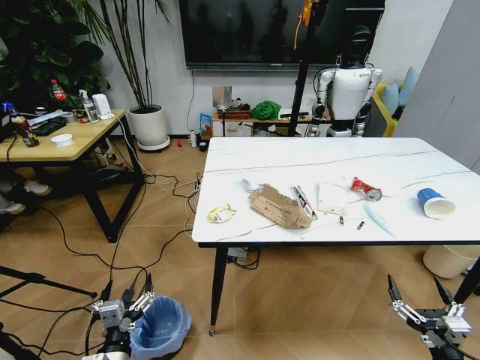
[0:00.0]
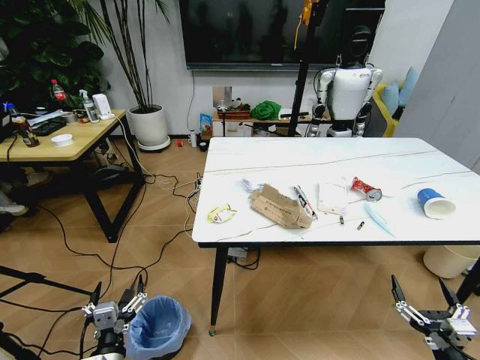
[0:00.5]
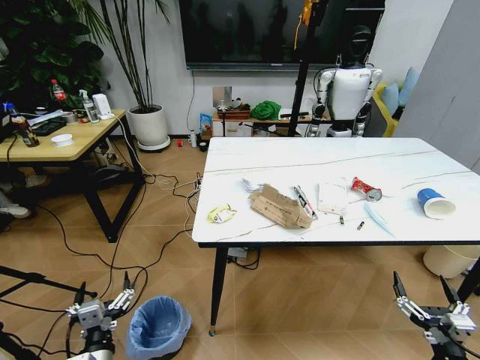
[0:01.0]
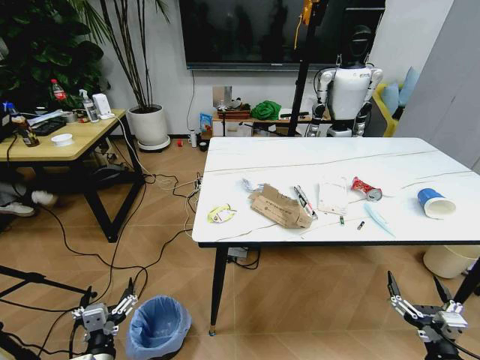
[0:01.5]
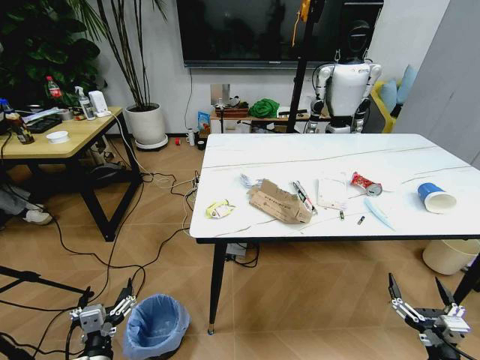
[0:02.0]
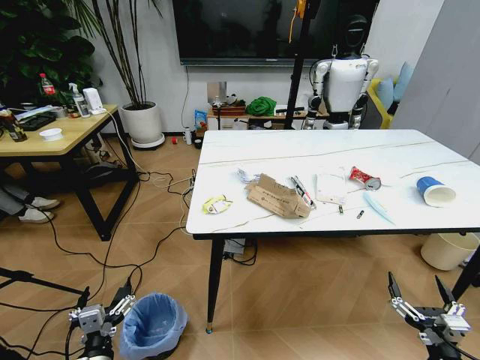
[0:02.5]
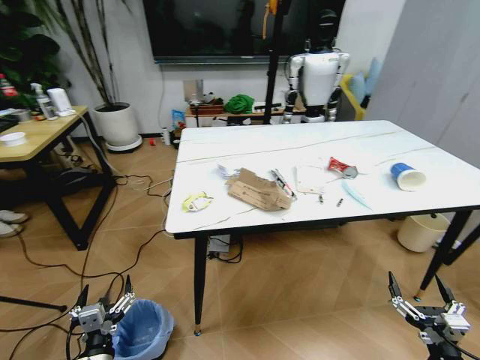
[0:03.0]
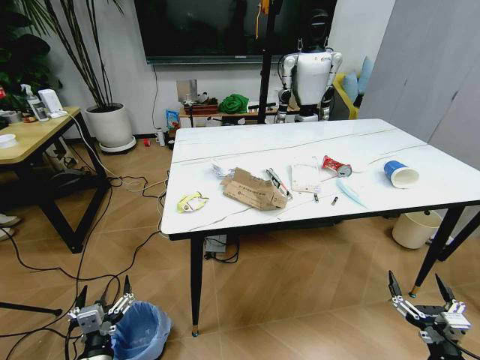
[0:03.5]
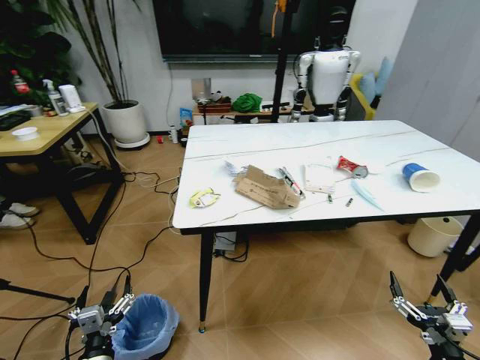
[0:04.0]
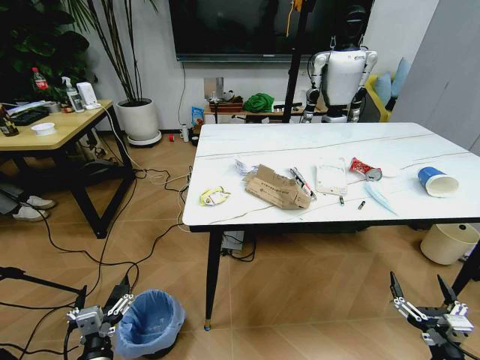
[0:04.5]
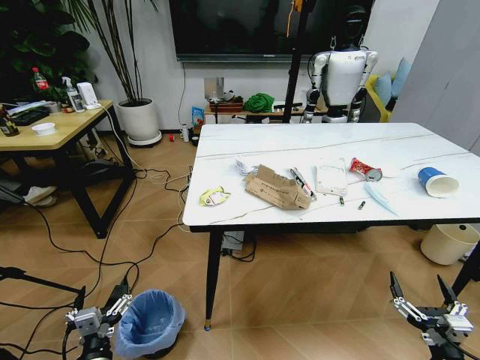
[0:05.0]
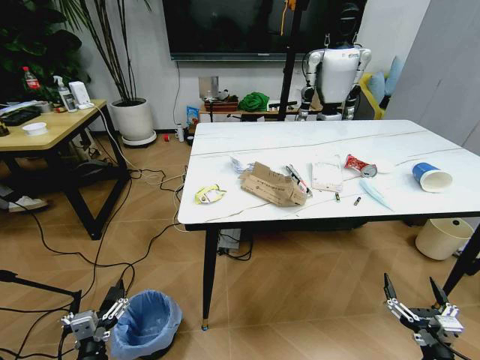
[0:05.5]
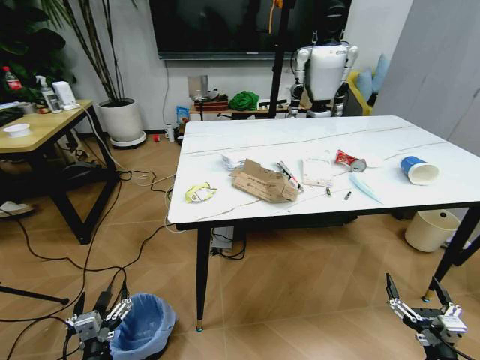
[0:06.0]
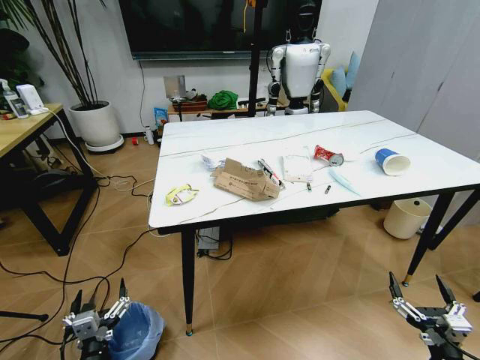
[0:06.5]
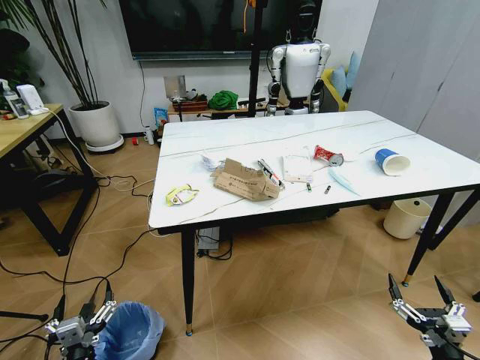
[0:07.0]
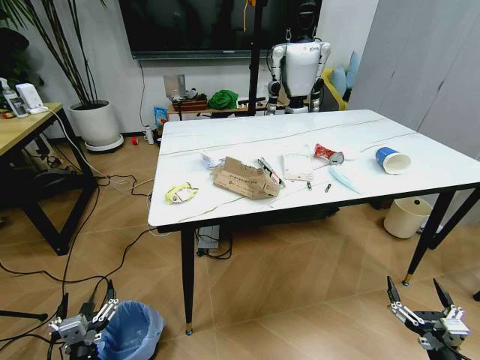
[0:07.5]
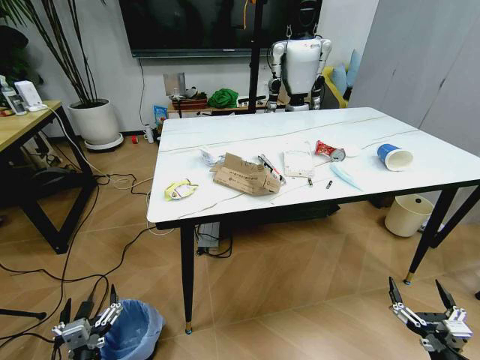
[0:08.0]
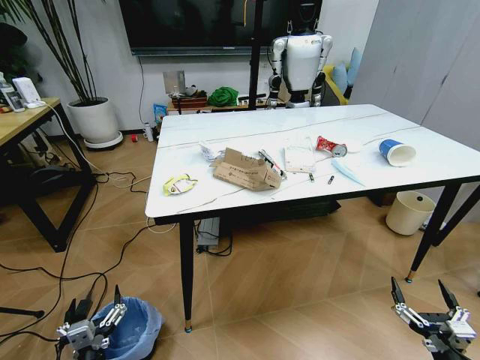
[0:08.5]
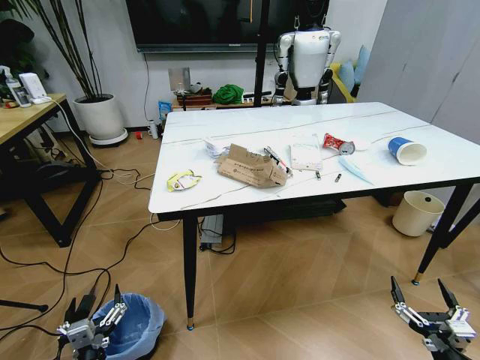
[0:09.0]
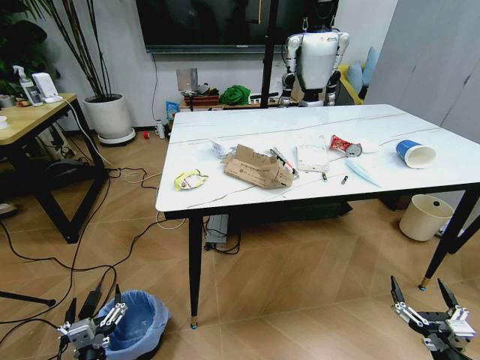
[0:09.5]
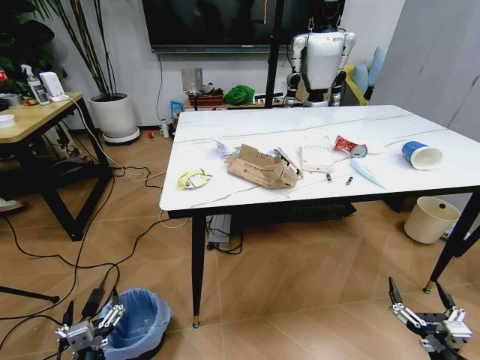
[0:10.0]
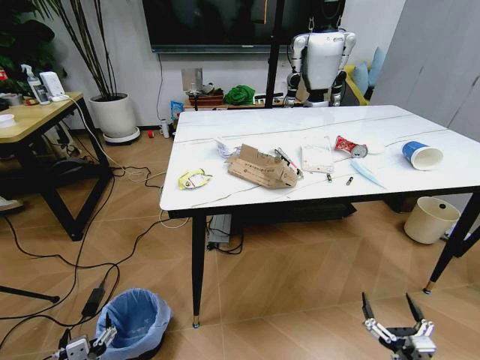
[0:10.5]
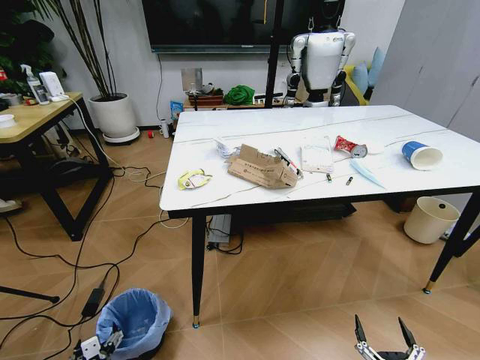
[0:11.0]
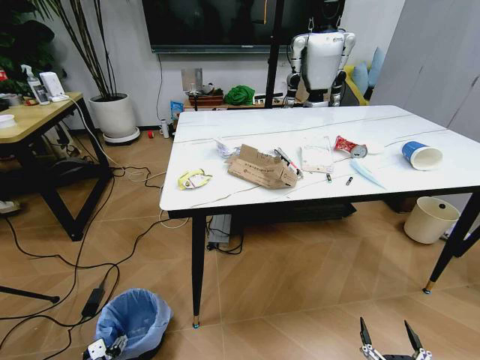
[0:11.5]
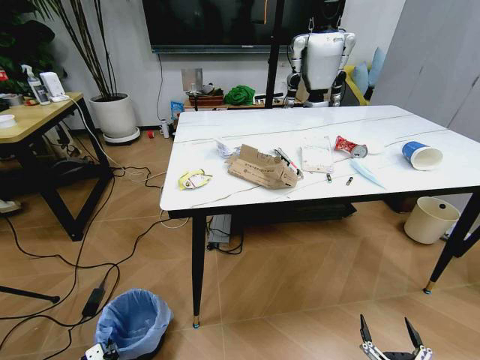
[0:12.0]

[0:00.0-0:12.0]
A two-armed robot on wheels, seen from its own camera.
Task of the whole recording: Pick up the trash bin and place the trash from the table into it.
0:10.0 to 0:12.0: The left gripper travels downward by approximately 15 cm, and closes up. Meanwhile the right gripper shifts roughly 10 cm downward, to the left and backward.

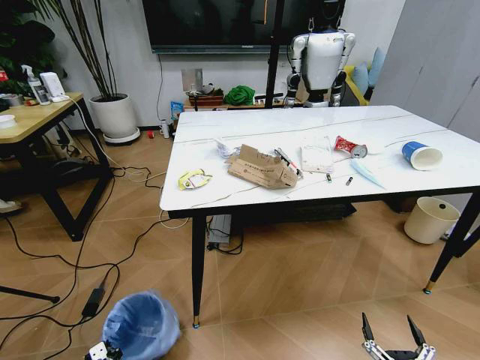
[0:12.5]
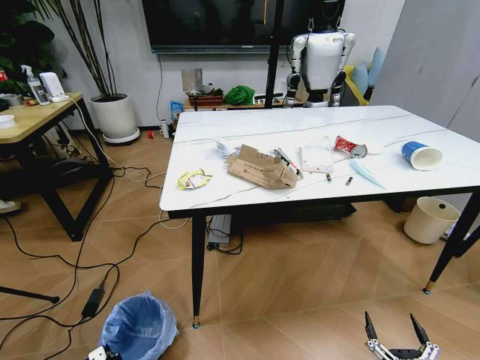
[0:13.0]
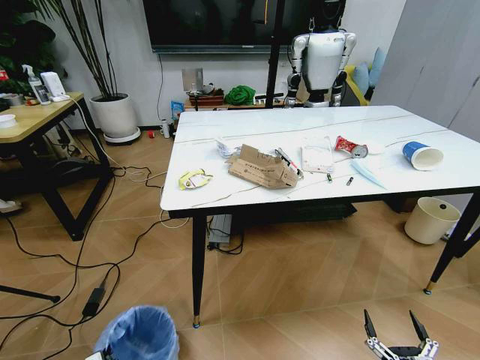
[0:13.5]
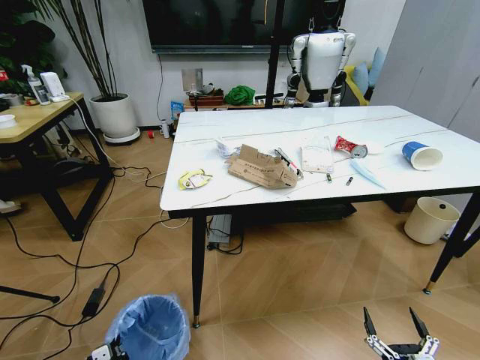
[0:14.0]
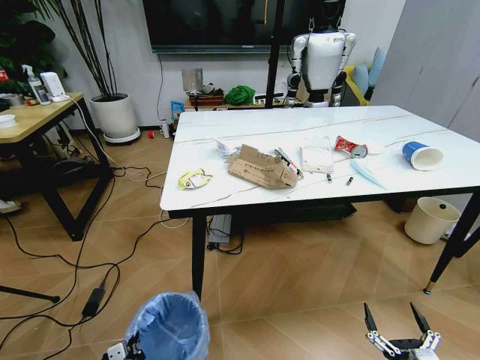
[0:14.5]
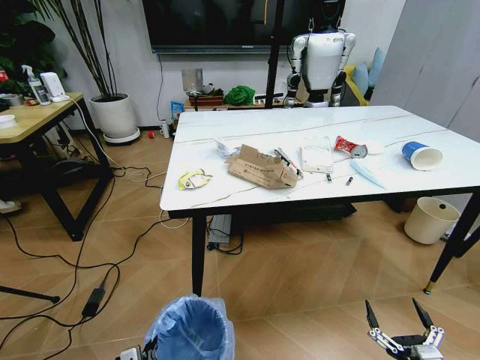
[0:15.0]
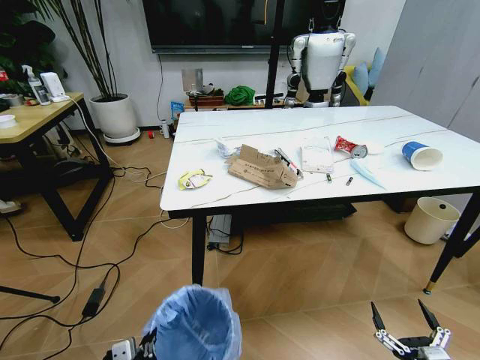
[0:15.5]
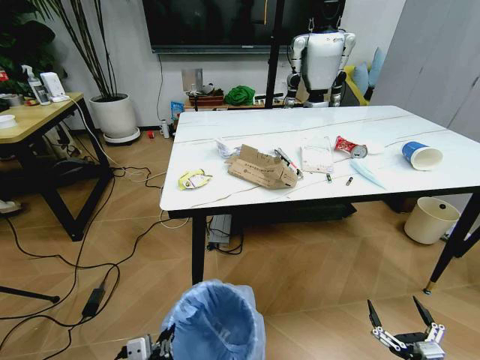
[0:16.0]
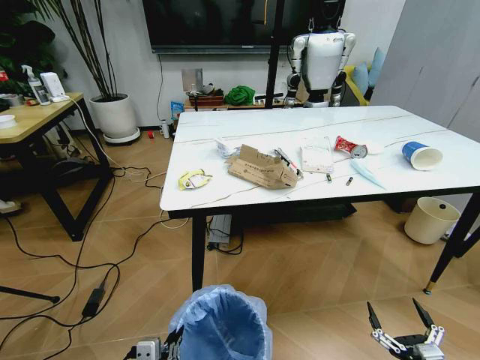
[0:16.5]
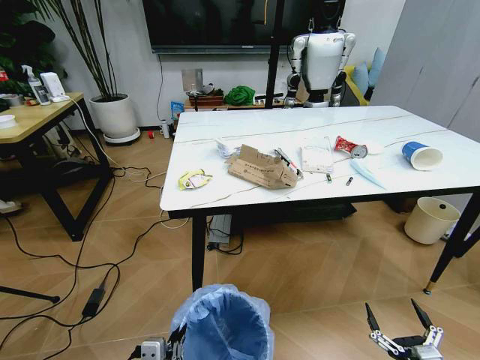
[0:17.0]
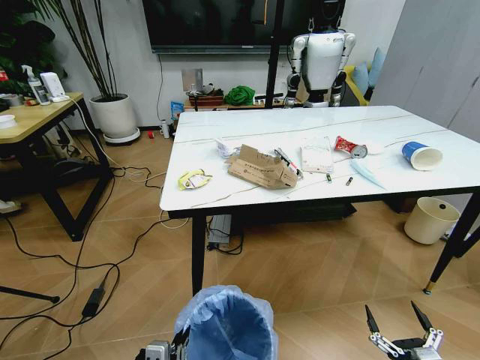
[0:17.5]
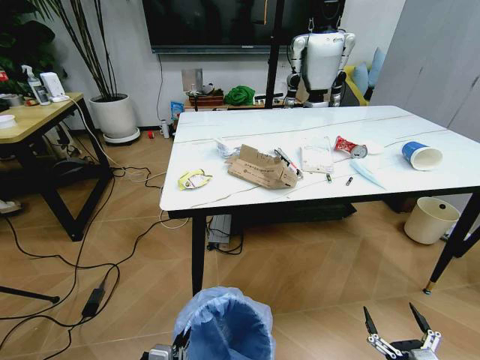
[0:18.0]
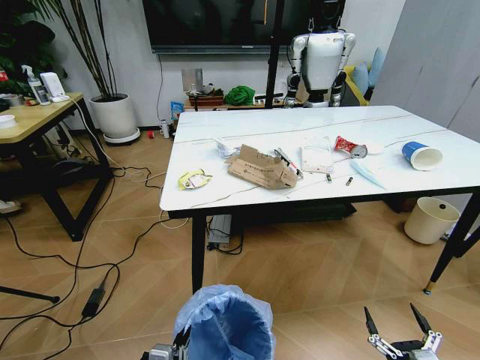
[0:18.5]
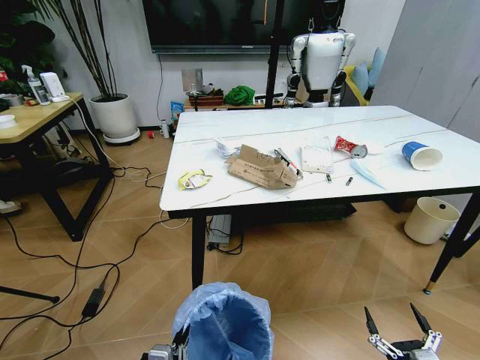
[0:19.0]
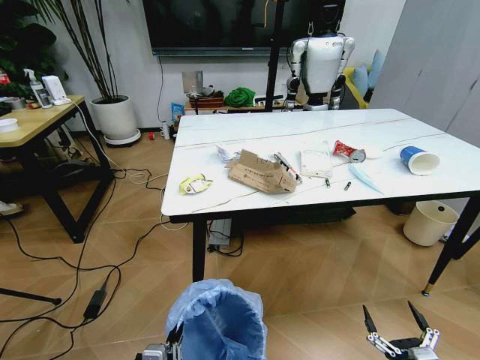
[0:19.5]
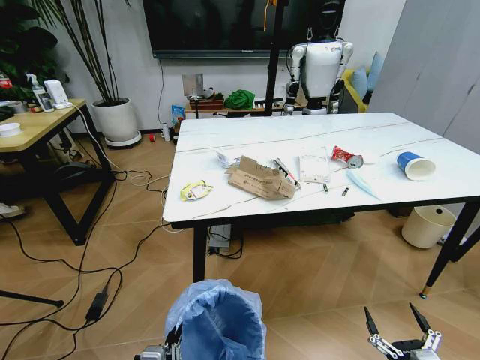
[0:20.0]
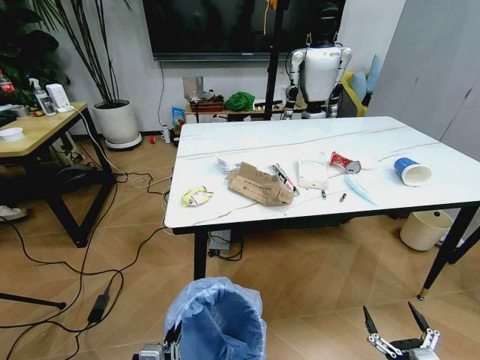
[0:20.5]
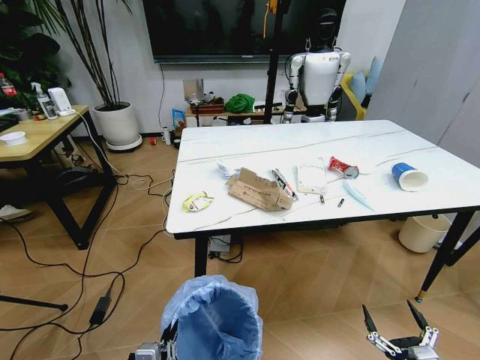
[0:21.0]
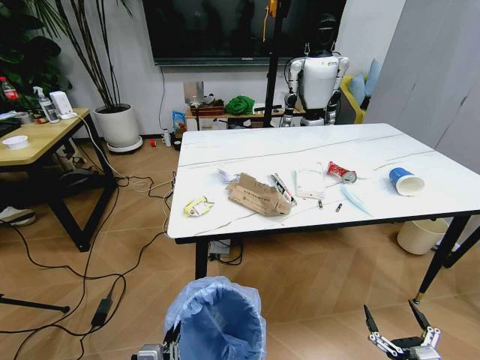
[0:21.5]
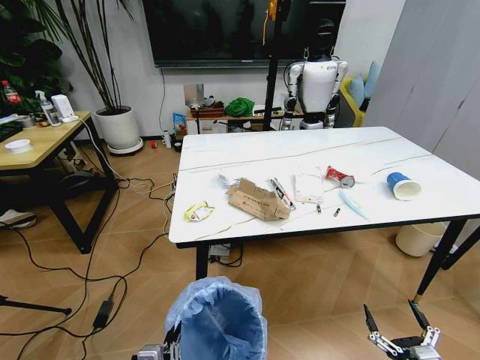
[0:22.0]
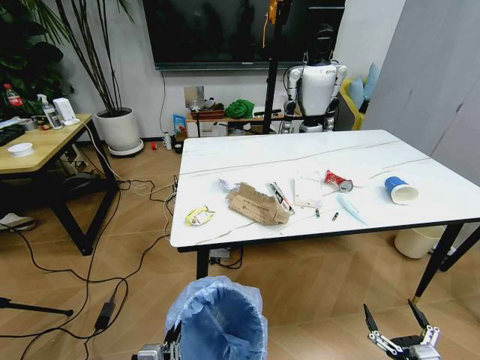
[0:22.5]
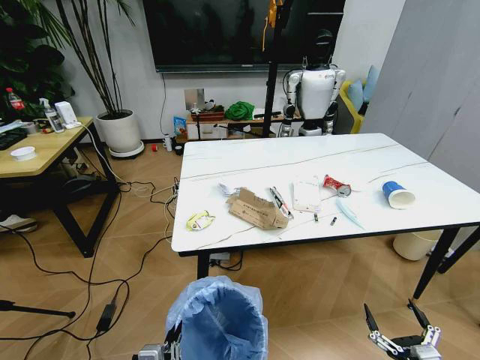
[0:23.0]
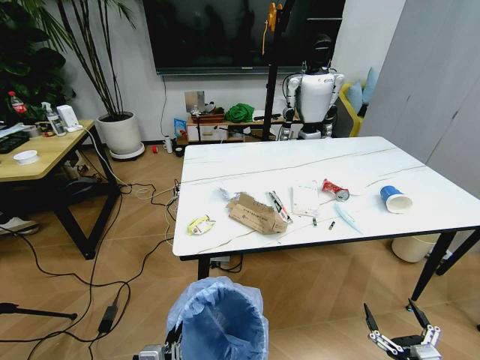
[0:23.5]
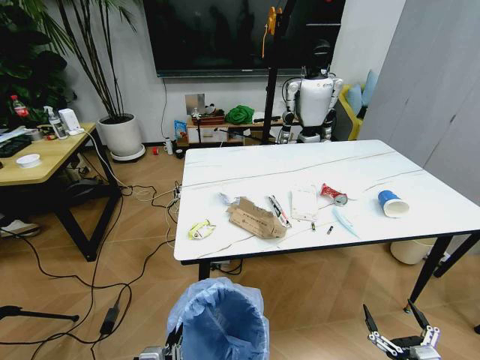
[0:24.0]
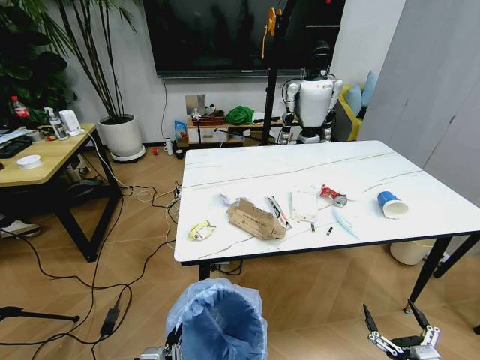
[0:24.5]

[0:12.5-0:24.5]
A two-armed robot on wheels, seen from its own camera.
Task of the whole recording: Pick up the trash bin and place the trash from the table into it.
0:12.5 to 0:14.5: The left gripper is displaced upward, to the right and backward by about 15 cm.
0:14.5 to 0:16.5: The left gripper goes approximately 20 cm upward and to the right.
0:16.5 to 0:18.5: The grippers move only a little.

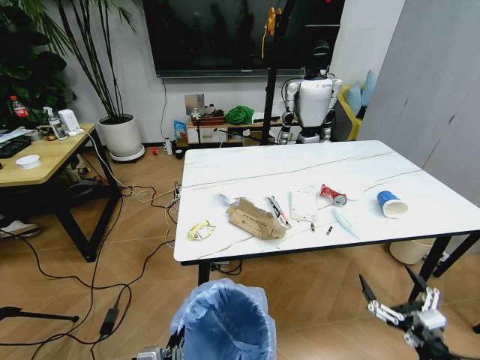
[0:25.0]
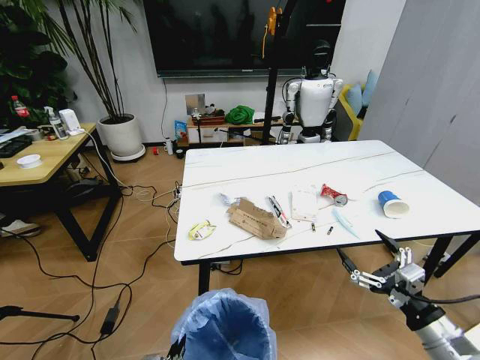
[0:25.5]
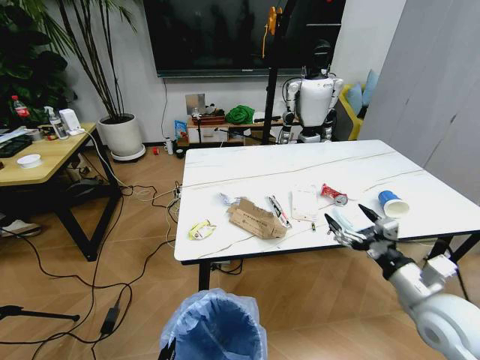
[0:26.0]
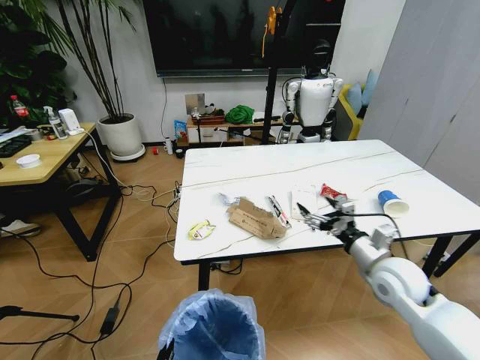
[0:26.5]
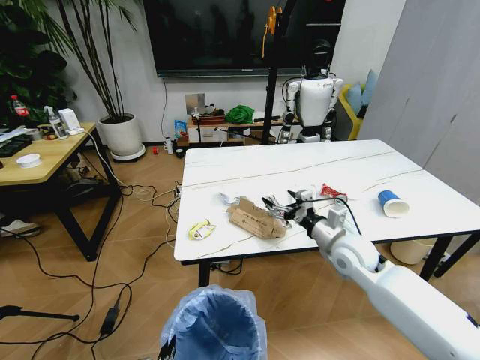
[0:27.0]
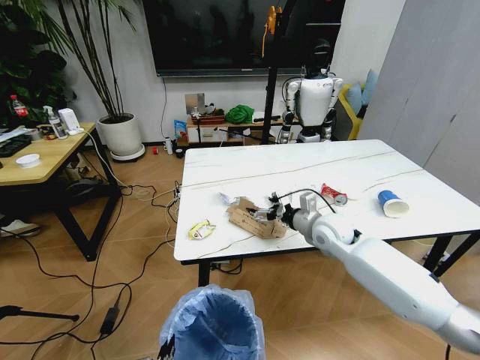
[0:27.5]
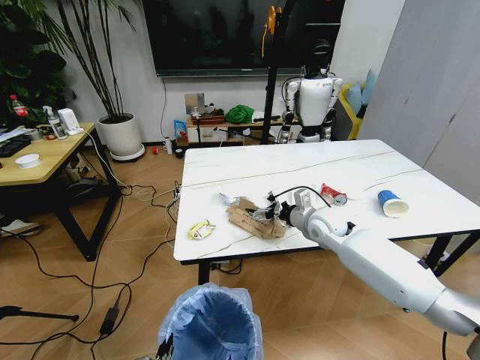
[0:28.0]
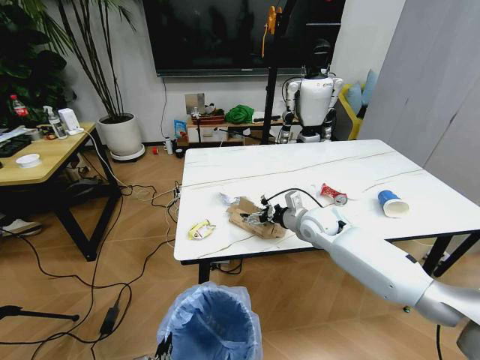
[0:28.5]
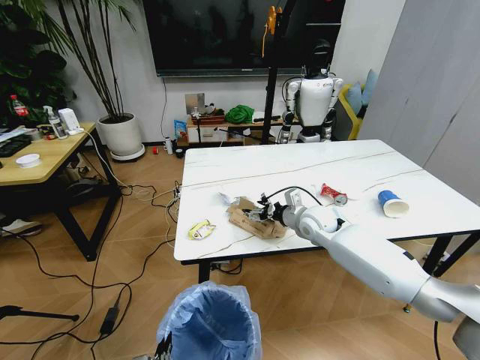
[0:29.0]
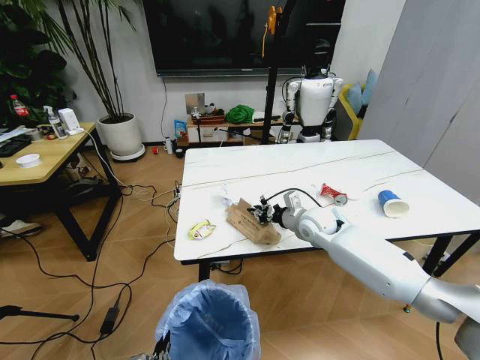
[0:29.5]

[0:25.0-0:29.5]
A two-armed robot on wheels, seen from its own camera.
Task of the whole recording: Pick up the trash bin and place the trash from the table into it.
0:25.0 to 0:27.0: The right gripper shifts roughly 35 cm forward and to the left.
0:27.0 to 0:29.5: The right gripper travels forward and to the left by about 10 cm, and closes its fingers.
